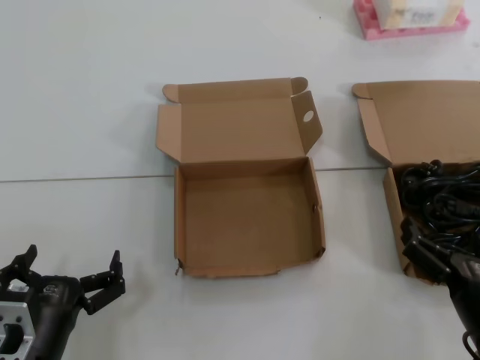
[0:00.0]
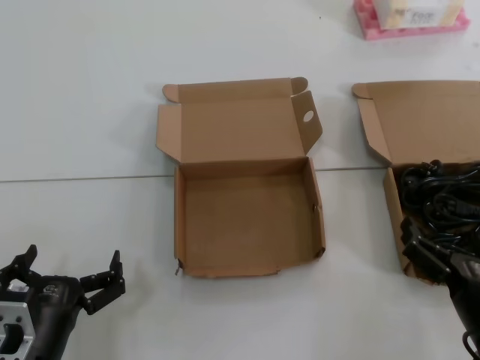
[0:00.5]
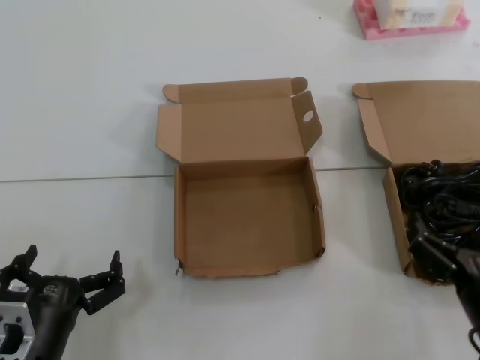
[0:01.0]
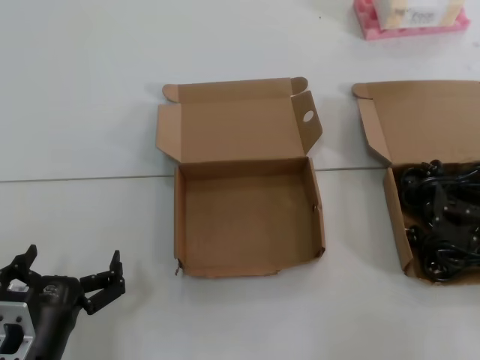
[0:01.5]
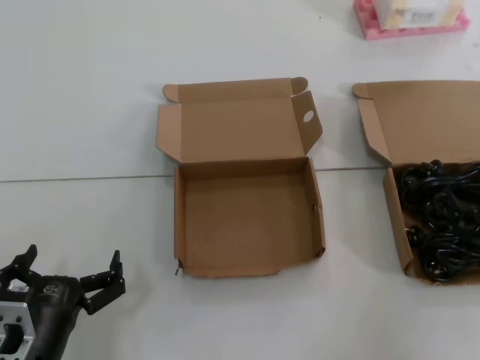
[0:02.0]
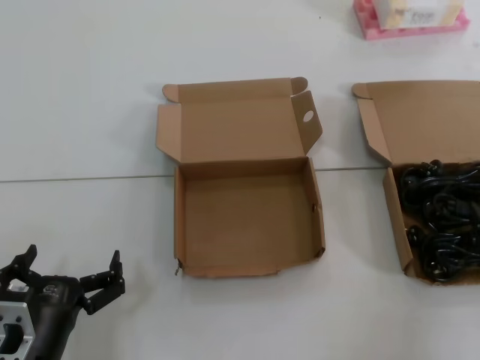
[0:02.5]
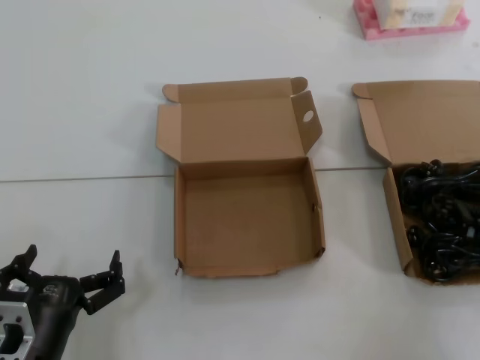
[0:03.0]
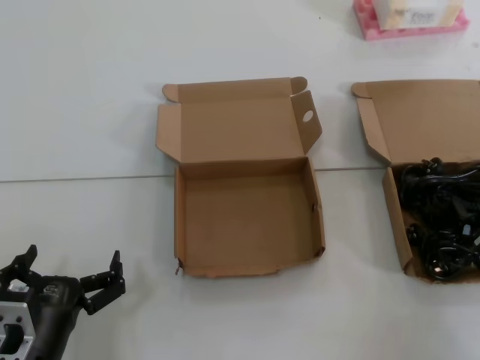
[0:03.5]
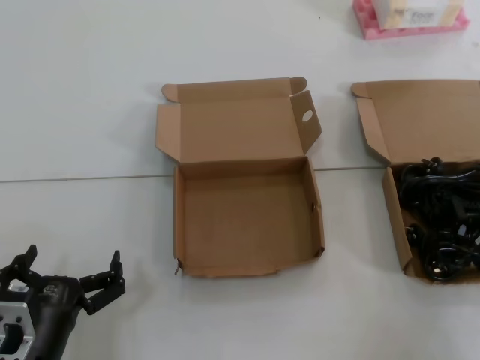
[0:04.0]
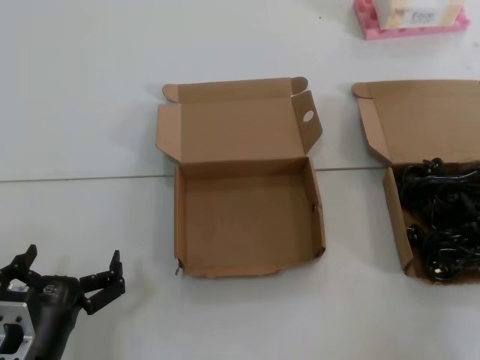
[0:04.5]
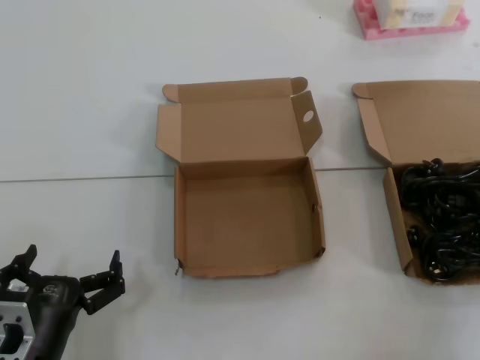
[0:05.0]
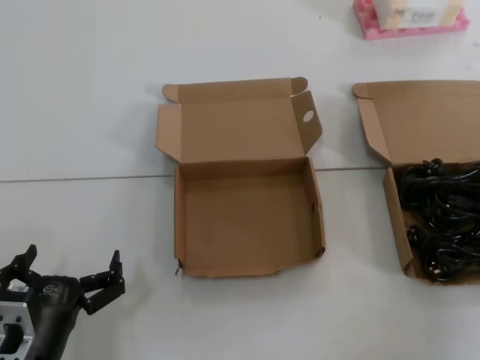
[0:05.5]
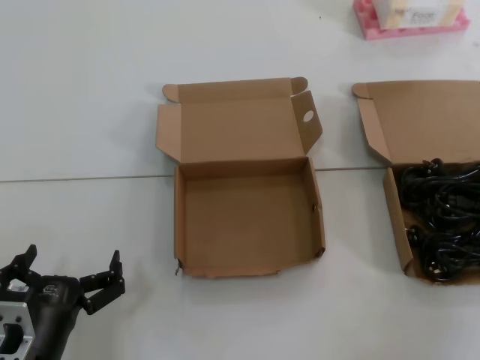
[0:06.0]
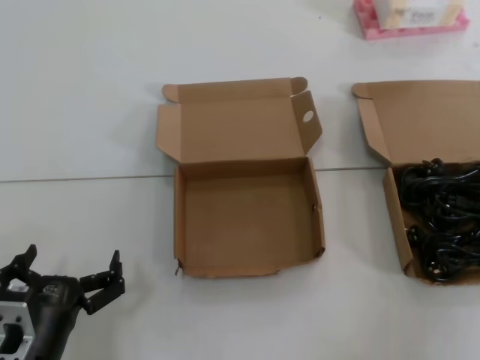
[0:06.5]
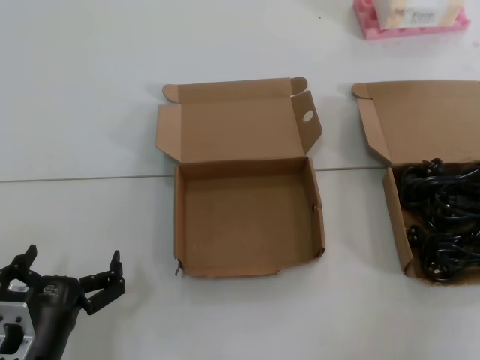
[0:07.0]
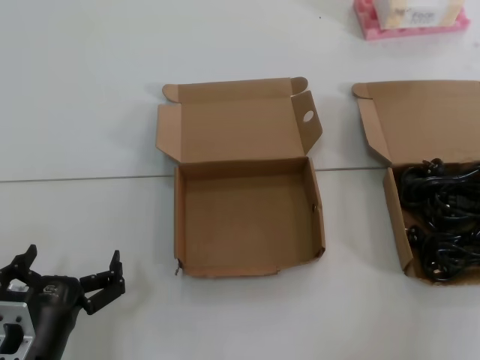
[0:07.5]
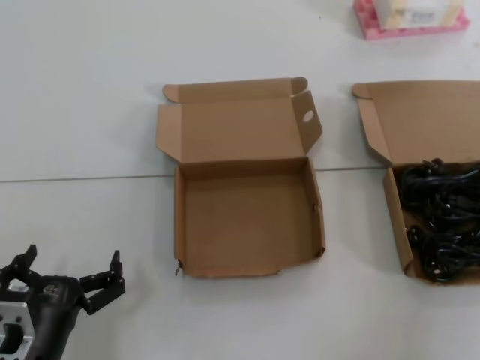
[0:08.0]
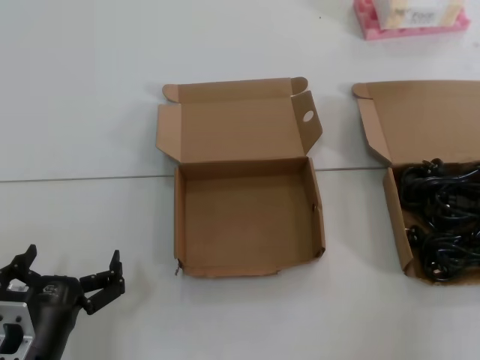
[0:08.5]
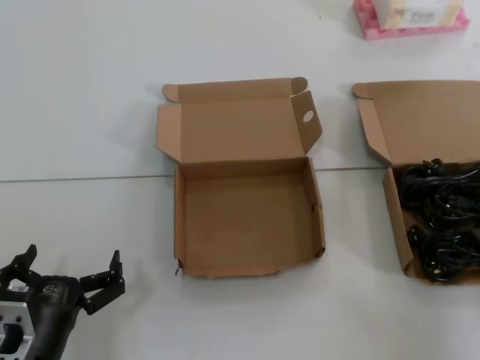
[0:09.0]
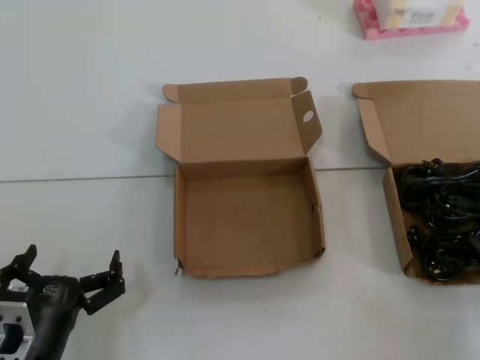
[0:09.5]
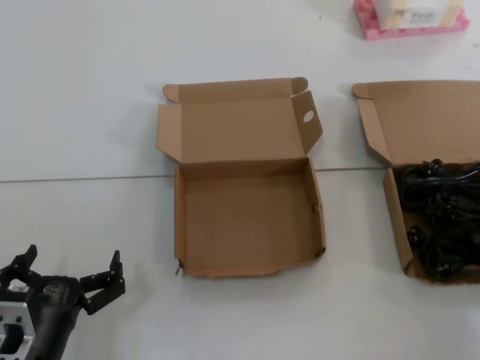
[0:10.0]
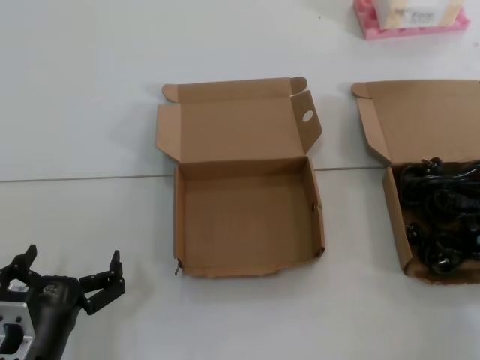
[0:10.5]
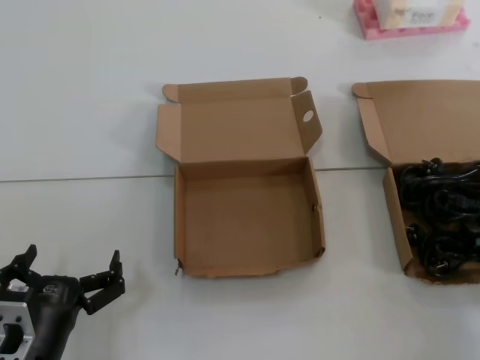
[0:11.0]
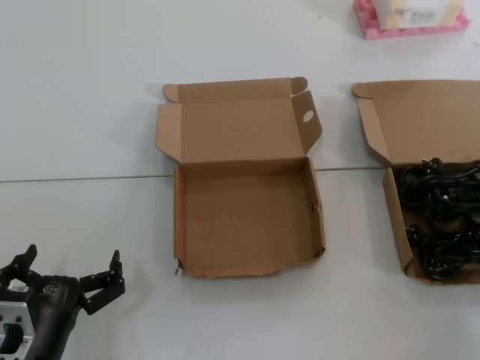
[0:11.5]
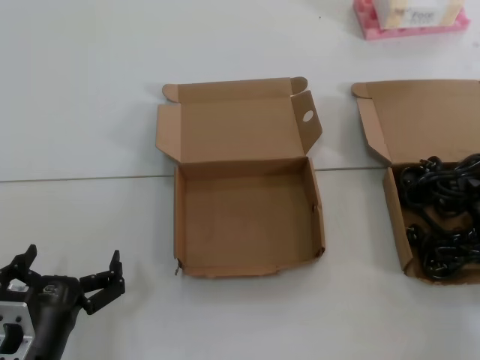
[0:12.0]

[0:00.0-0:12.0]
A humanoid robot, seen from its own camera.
Task of the whole recording: take the parts from the box containing them and put them into an empty box.
Step, 0:00.0 to 0:10.5: Grasp the data cable.
0:00.0 to 0:02.0: The right hand travels upward and to the right by about 10 cm.

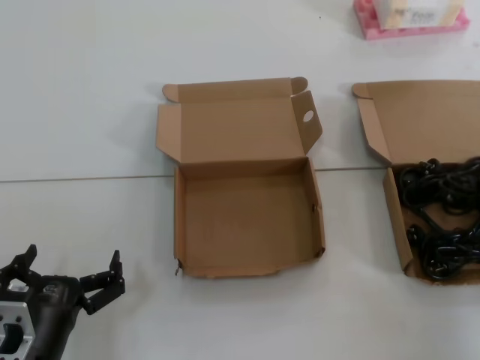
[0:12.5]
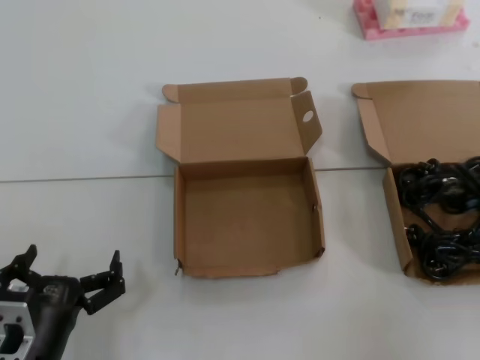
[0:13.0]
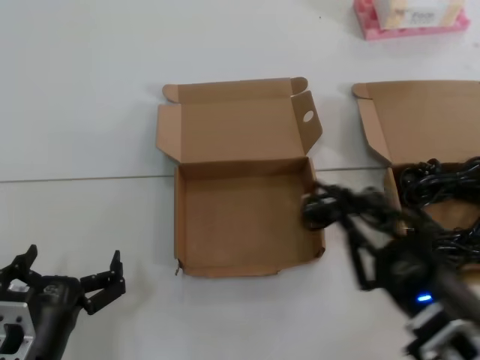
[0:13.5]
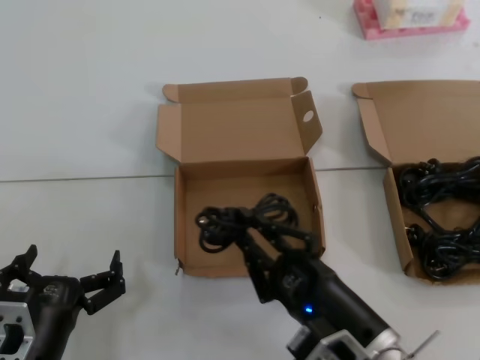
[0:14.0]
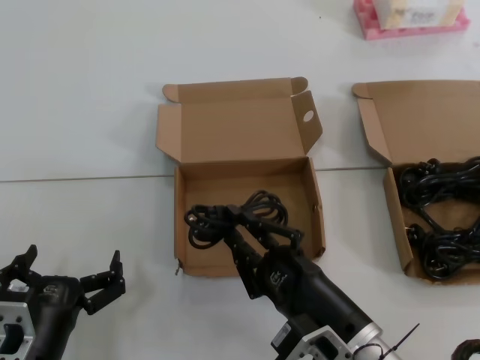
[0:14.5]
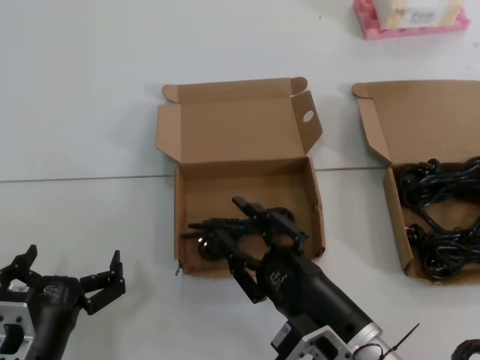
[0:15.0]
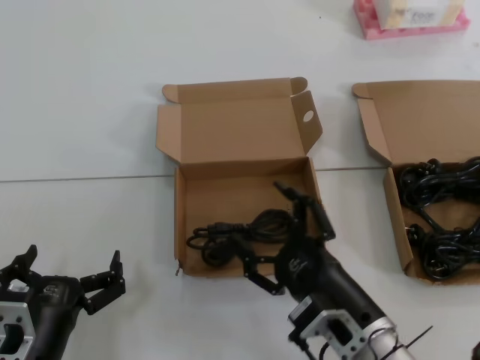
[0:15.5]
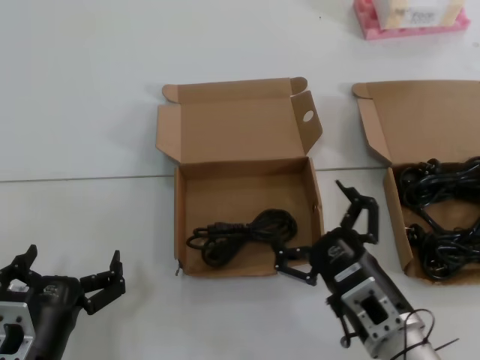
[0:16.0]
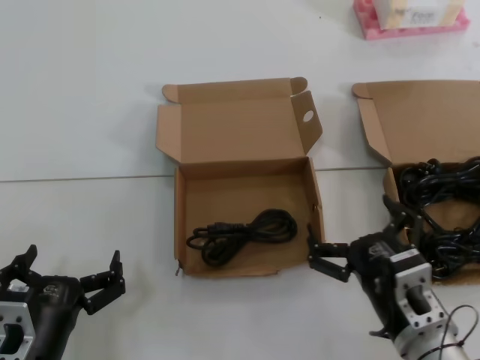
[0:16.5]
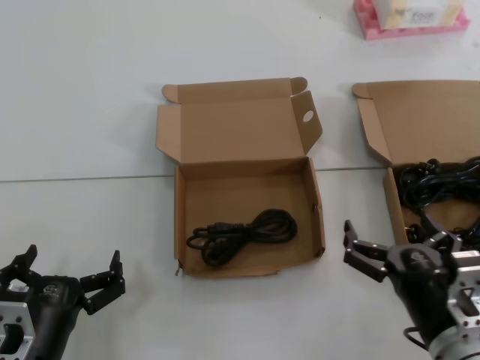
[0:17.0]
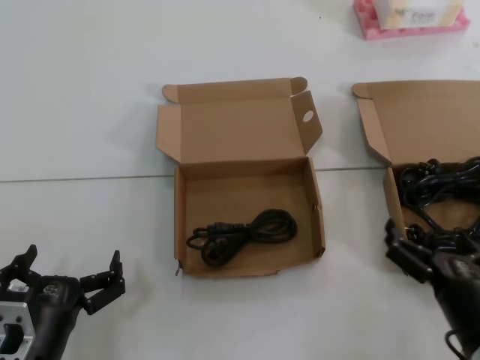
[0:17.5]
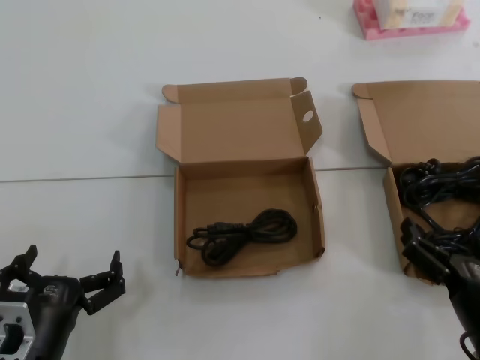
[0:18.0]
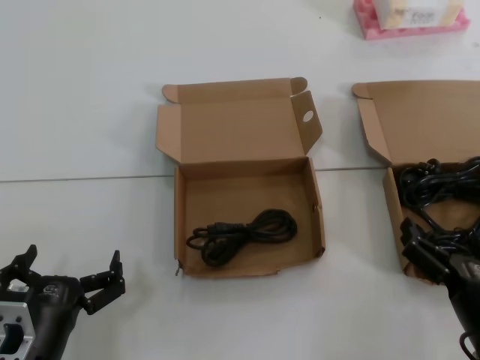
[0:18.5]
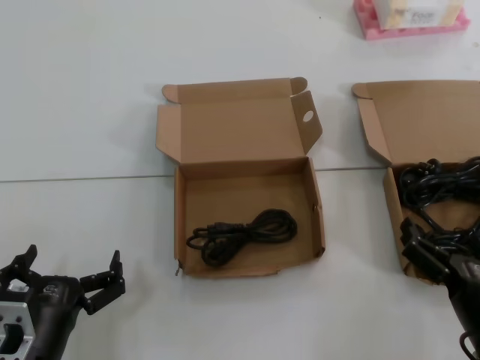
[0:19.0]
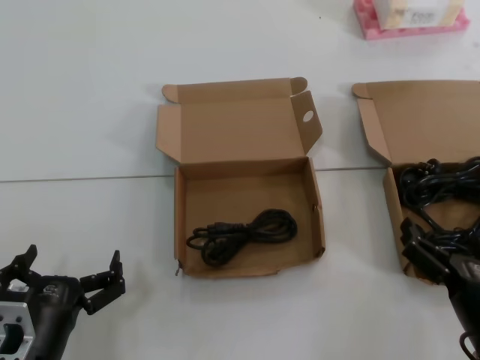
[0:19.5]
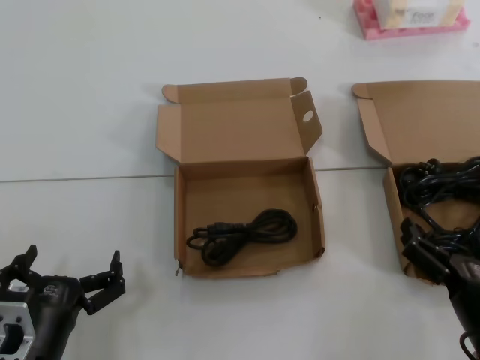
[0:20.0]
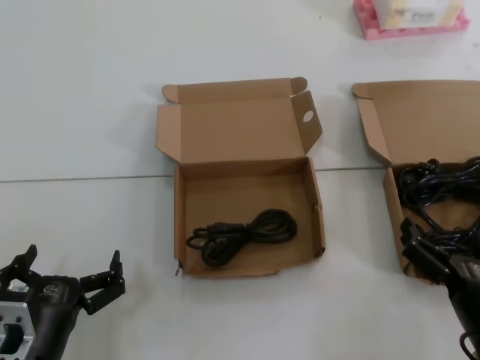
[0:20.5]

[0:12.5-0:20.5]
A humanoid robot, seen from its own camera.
Task of the whole recording: take the parts from the box containing them and put them into an empty box.
Step, 0:12.5 to 0:14.5: Place the data cable in the another box.
0:12.5 to 0:14.5: The right hand travels to the left by some 25 cm.
0:14.5 to 0:16.5: The right hand shifts roughly 5 cm to the right.
0:16.5 to 0:18.5: The right hand travels to the right by some 10 cm.
0:18.5 to 0:20.5: Both hands stay put.
